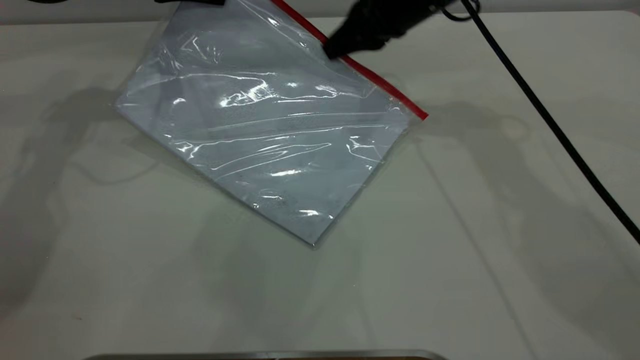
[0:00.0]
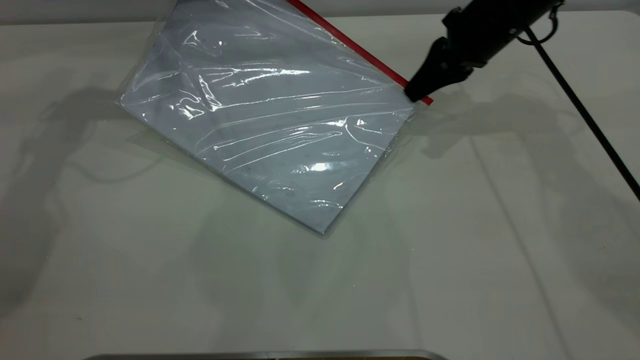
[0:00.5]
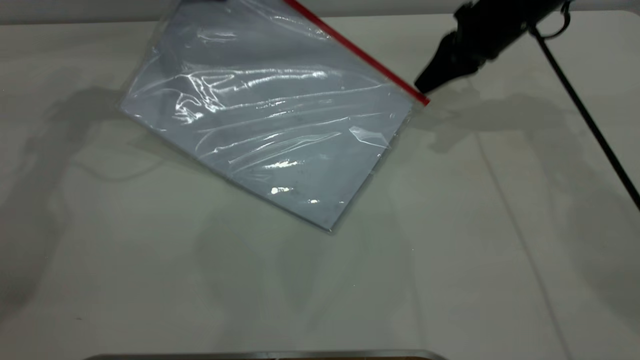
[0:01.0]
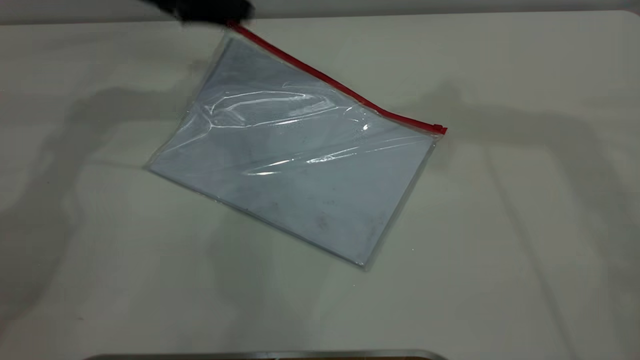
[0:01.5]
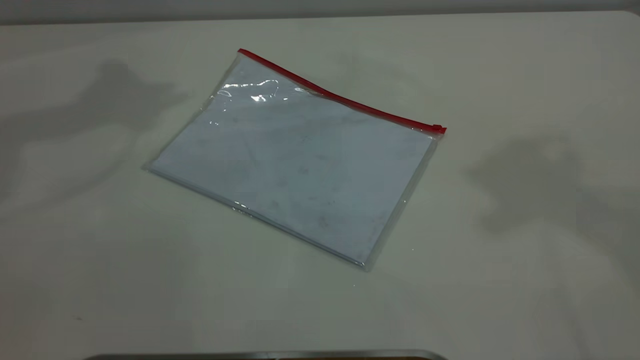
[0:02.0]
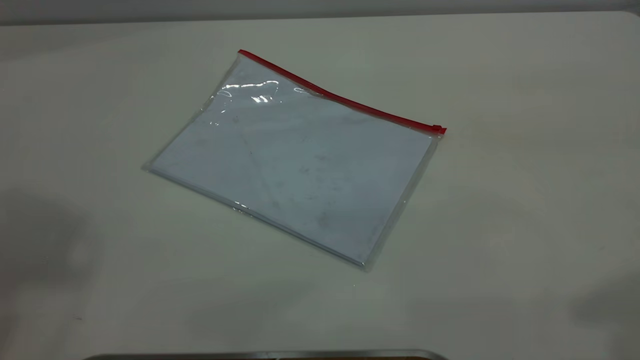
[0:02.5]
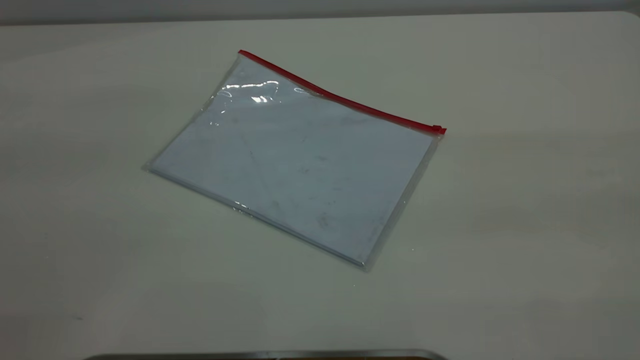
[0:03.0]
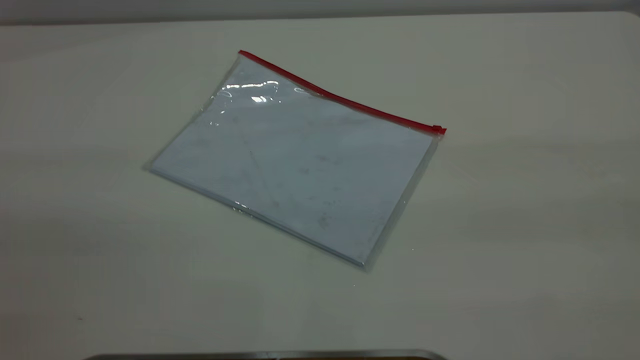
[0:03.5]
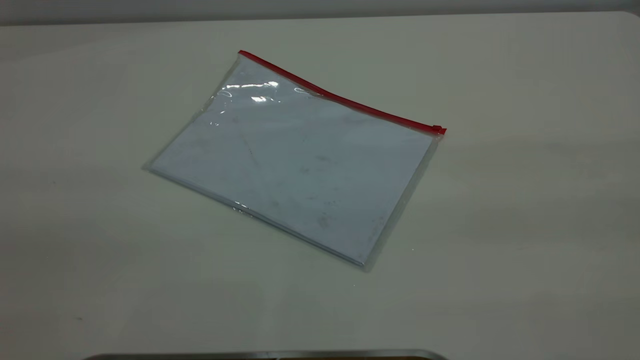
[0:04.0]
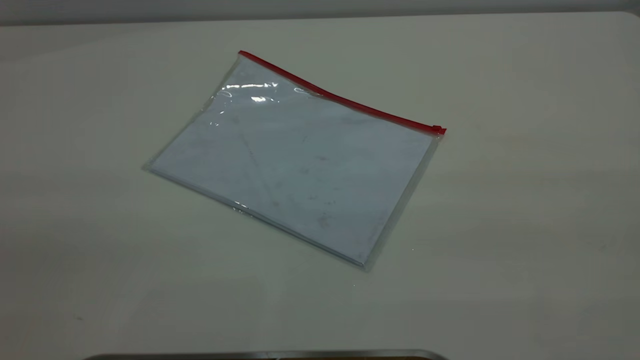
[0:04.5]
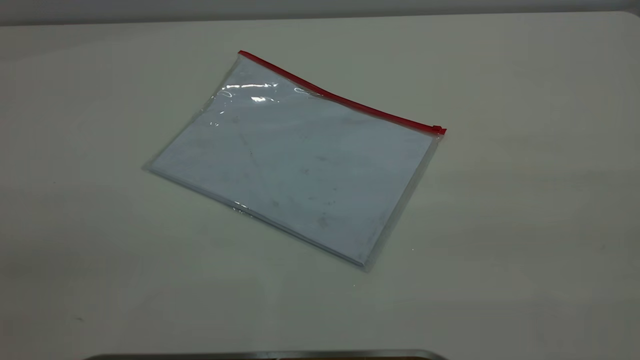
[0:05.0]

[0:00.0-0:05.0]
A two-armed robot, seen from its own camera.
0:00.0 to 0:02.5: The right gripper shifts approximately 50 cm backward, upward and to the right, and opens its fingers, while the left gripper goes roughly 50 cm upward and backward, and opens.

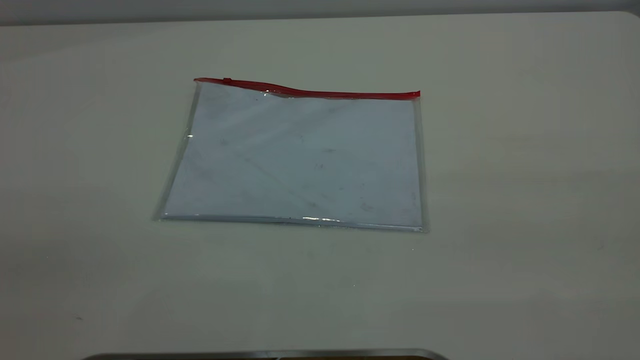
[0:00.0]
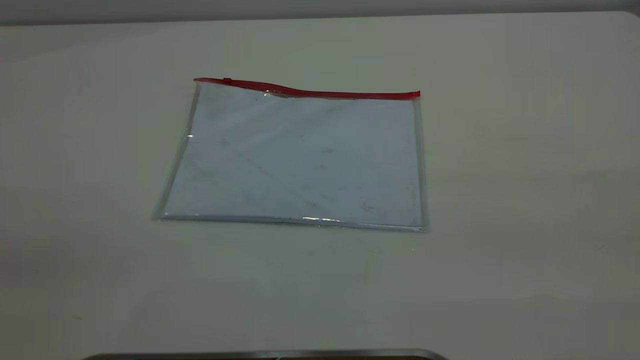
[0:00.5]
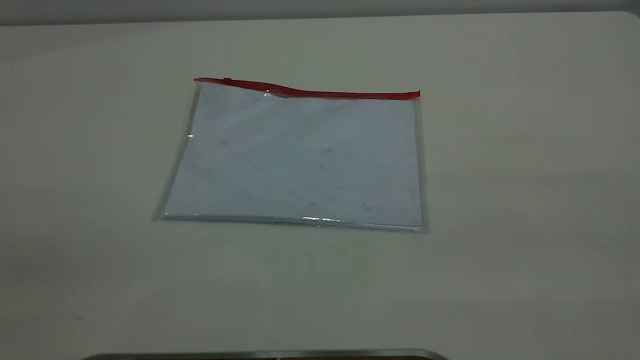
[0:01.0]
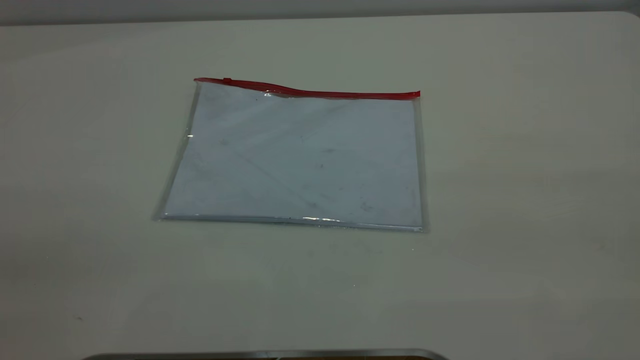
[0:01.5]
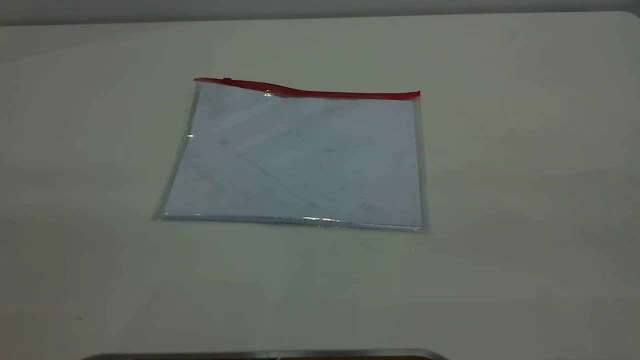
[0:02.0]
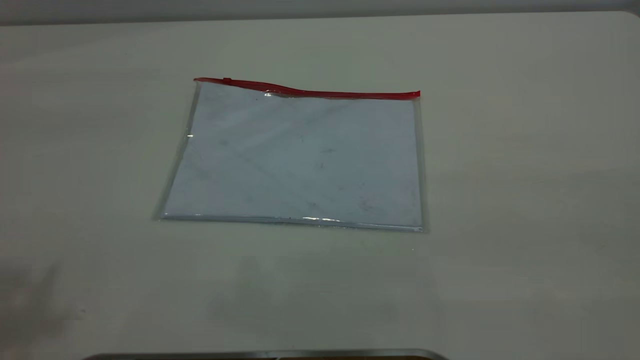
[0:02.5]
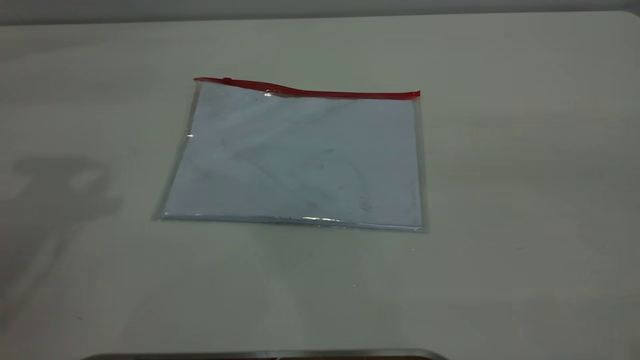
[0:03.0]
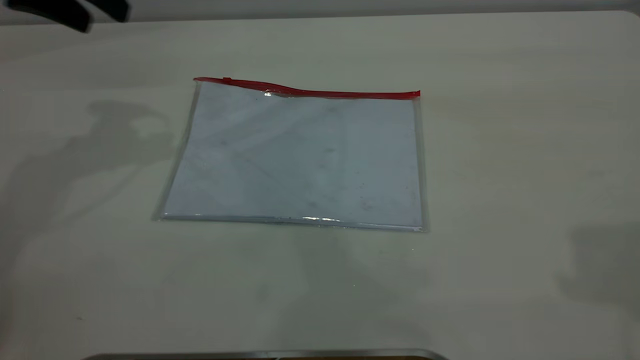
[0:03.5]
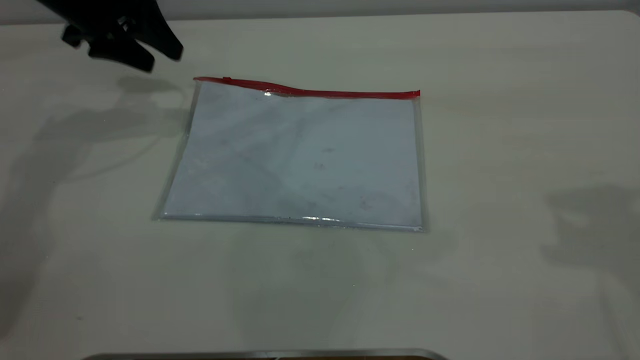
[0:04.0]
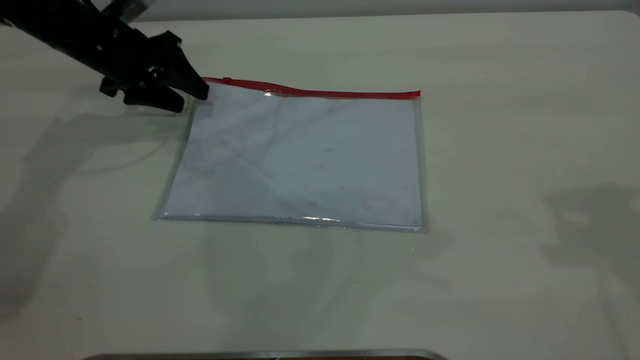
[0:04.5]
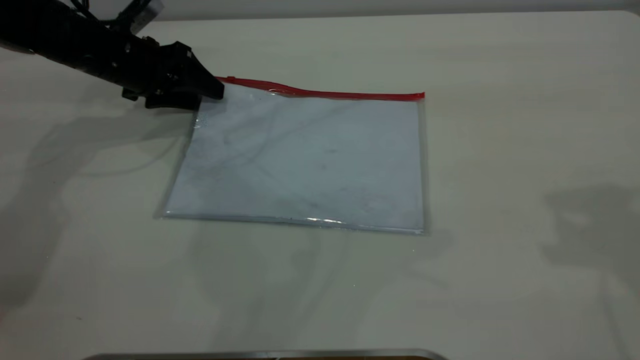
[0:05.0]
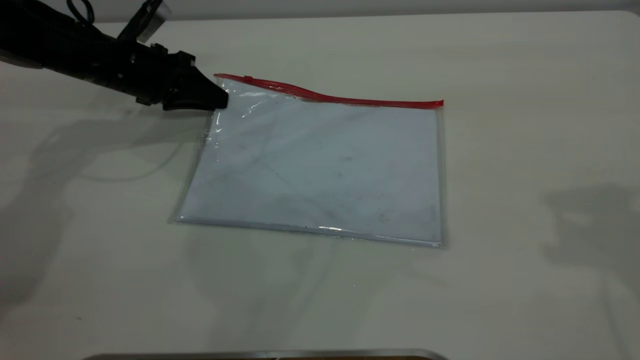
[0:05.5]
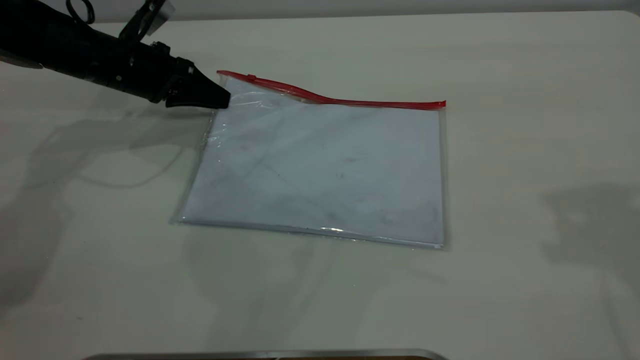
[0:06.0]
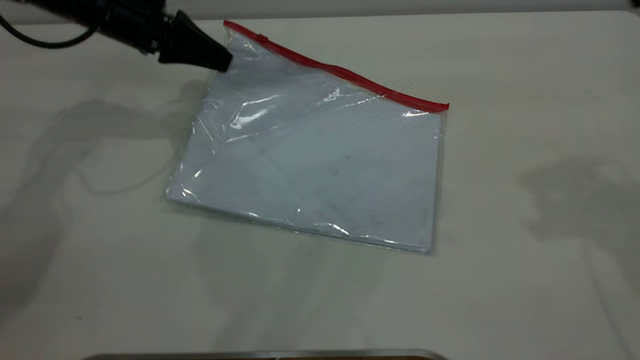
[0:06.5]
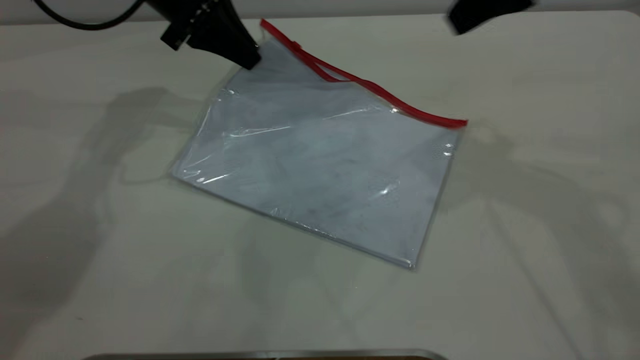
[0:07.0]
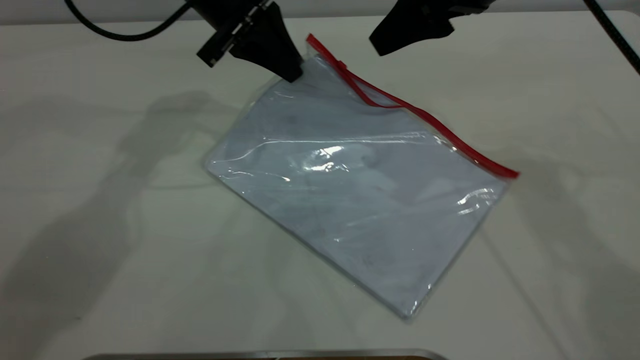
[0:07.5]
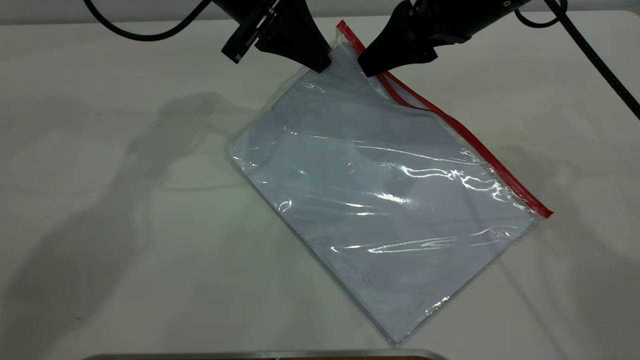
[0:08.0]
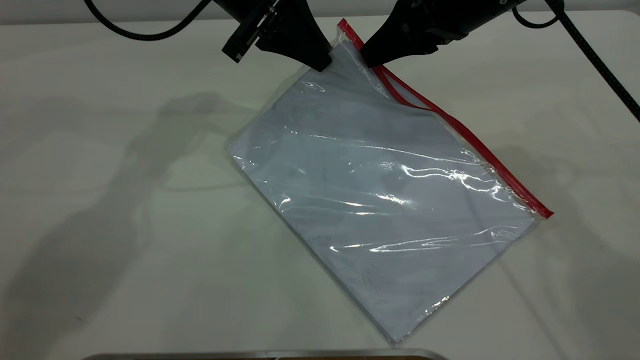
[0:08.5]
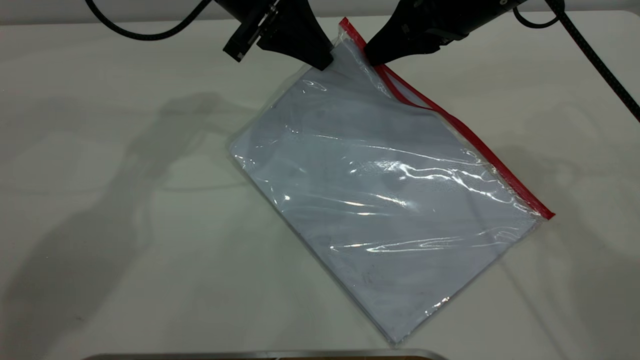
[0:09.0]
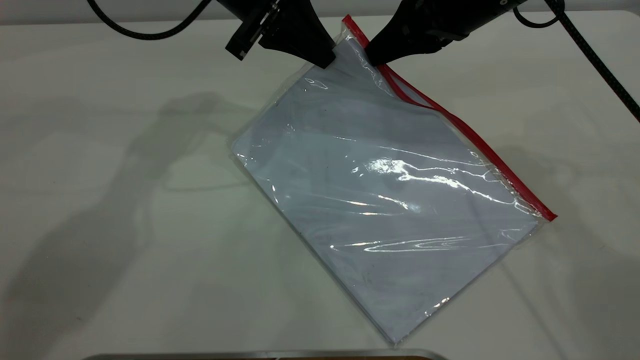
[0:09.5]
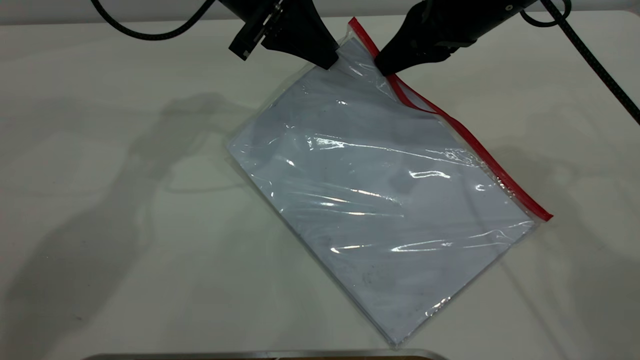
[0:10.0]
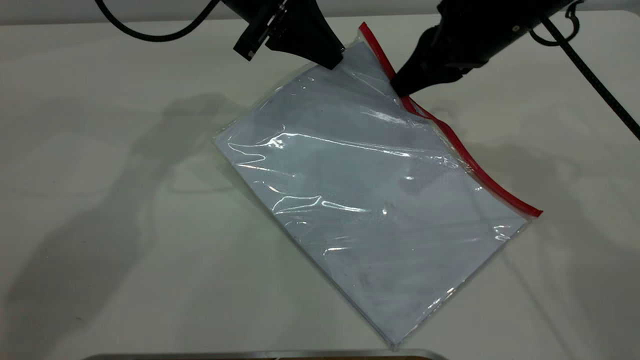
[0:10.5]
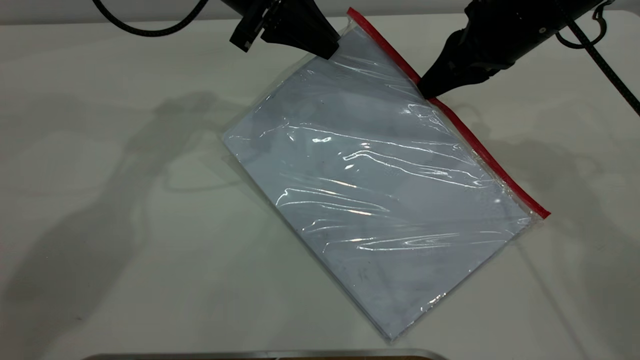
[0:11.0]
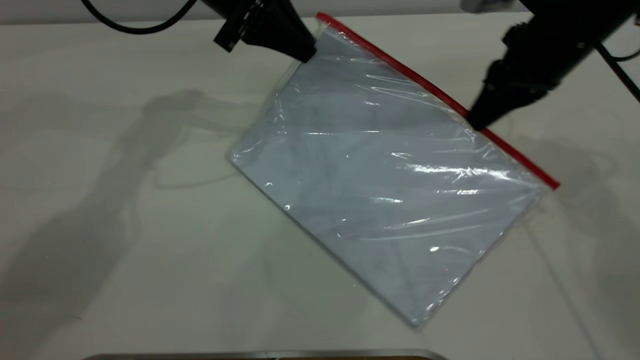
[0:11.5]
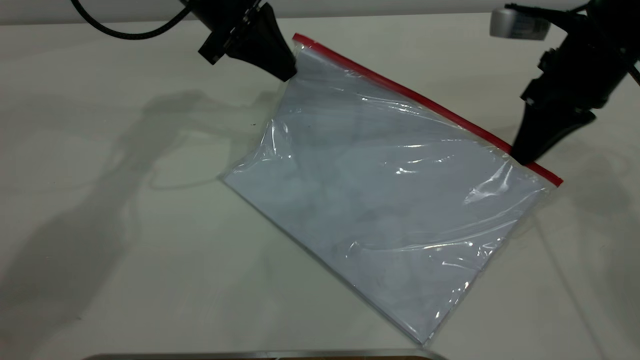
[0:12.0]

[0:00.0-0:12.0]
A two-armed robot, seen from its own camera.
Step, 0:00.0 to 0:06.0: Pick up the transparent plastic bag with the left gripper.
0:02.0 to 0:04.0: The left gripper moves forward and downward, approximately 50 cm.
0:04.0 to 0:06.0: The left gripper is displaced downward by approximately 10 cm, and closes up.
0:06.0 to 0:08.0: The right gripper is displaced downward, forward and to the left by some 25 cm. The left gripper travels to the right and upward by roughly 20 cm.
0:08.0 to 0:10.0: The right gripper closes up.
0:10.0 to 0:12.0: The right gripper travels to the right by about 10 cm.

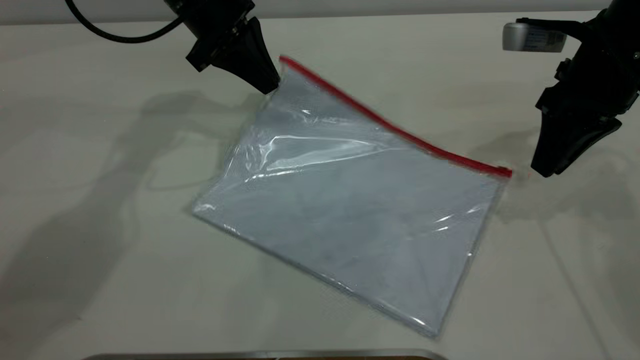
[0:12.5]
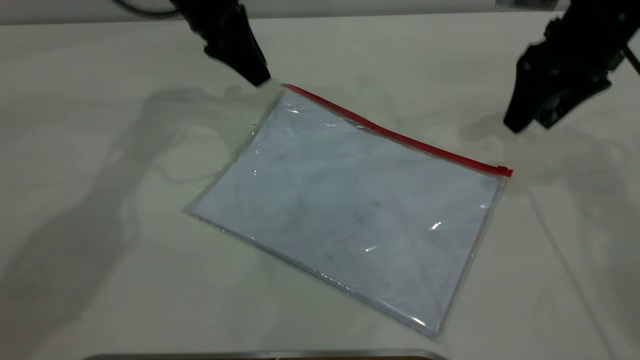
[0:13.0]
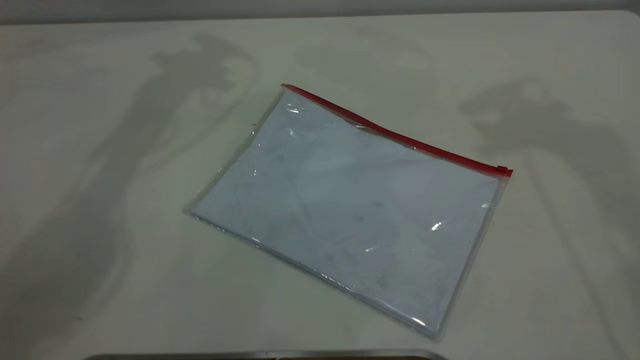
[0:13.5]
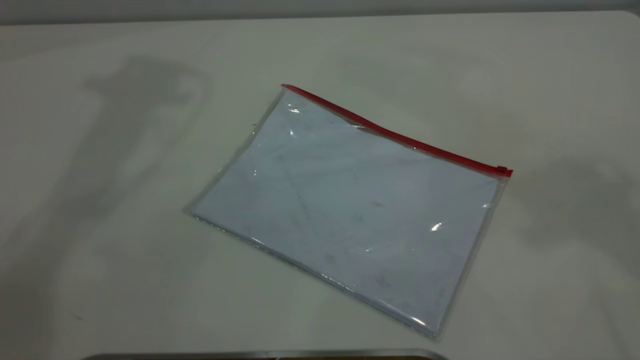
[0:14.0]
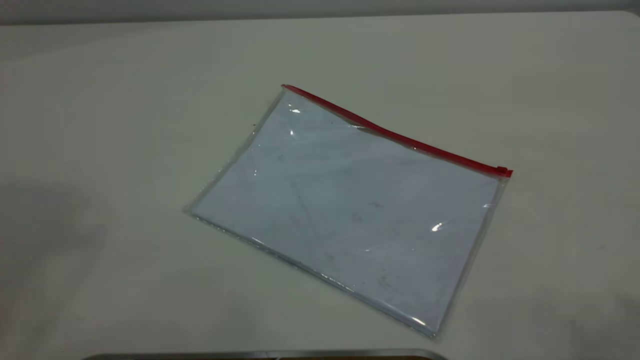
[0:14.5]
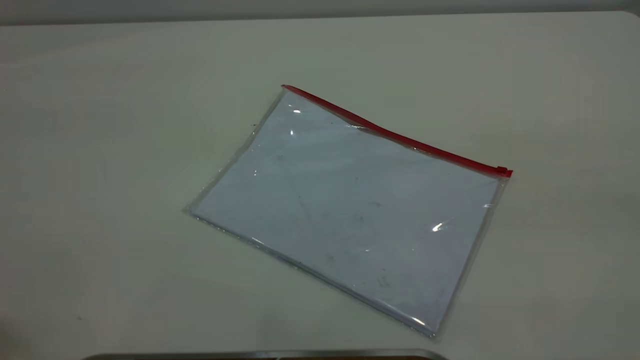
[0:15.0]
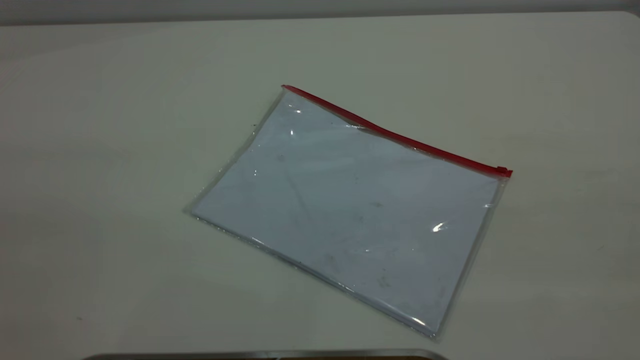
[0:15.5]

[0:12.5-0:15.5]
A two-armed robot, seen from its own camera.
Step, 0:12.5 to 0:13.0: Place the transparent plastic bag.
0:12.5 to 0:14.0: The two grippers go about 40 cm upward. The left gripper opens. The right gripper opens its fingers.
